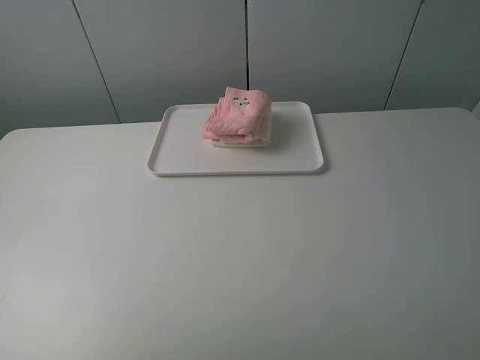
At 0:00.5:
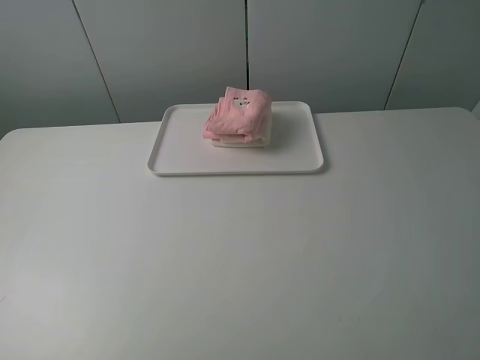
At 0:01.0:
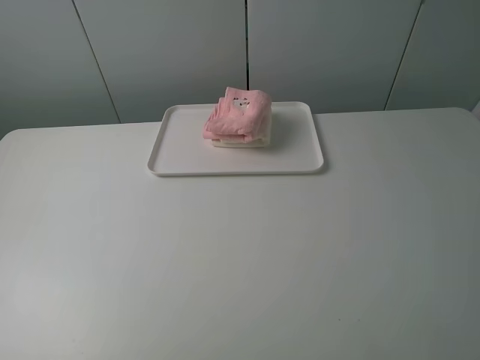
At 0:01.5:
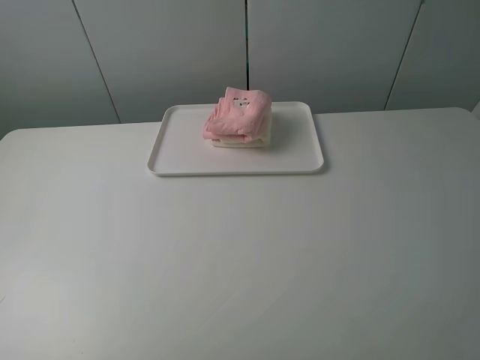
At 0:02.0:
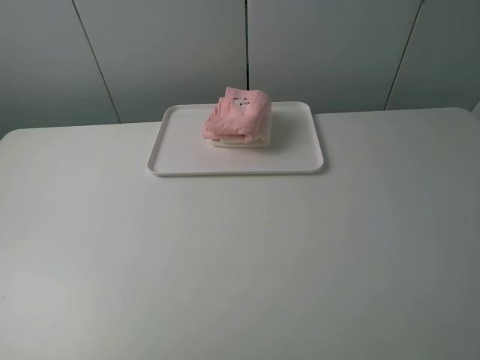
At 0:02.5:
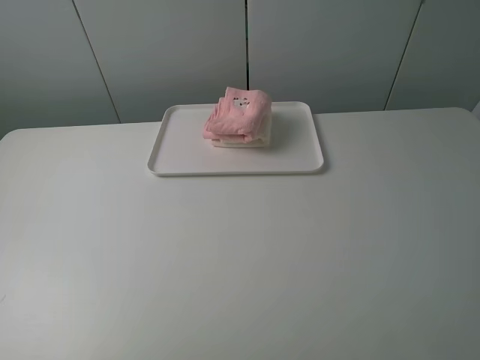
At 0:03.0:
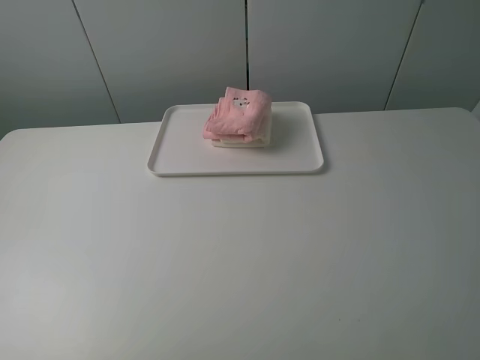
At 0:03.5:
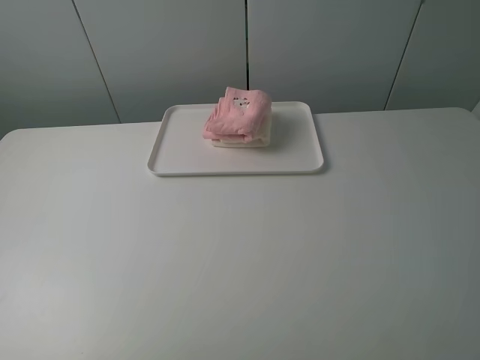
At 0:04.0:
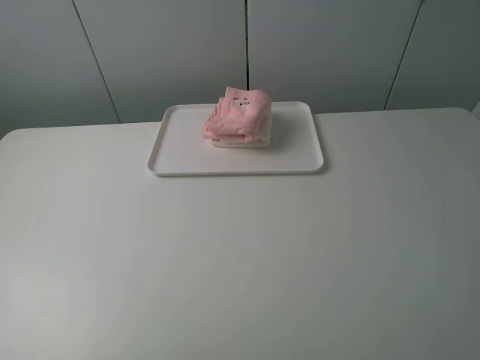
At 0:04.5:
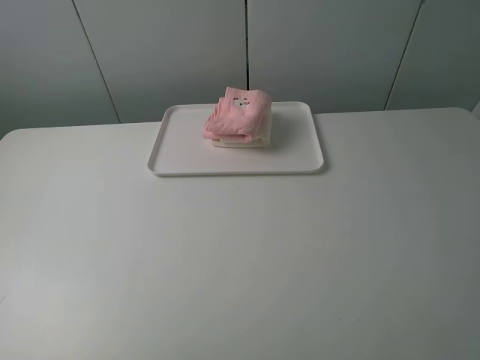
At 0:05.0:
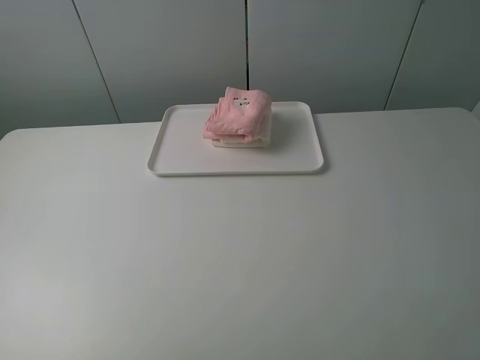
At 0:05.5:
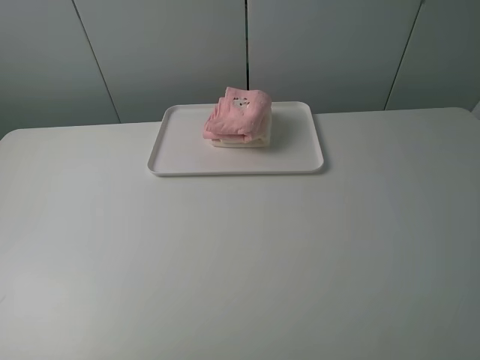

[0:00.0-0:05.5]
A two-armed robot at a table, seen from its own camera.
Task of the whole recording: fold one of the towels by two grippers and place it on the tray,then fold another towel by two grippers and place it on the folded towel.
0:03.5 to 0:05.5: Neither gripper changes place.
